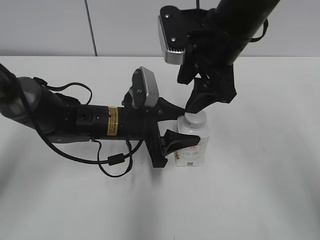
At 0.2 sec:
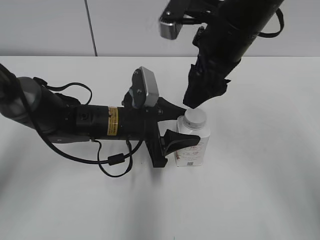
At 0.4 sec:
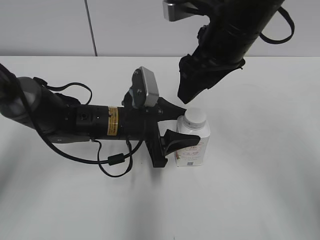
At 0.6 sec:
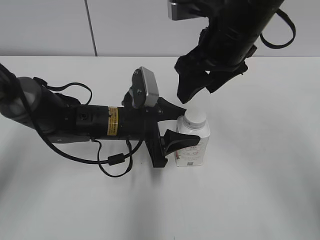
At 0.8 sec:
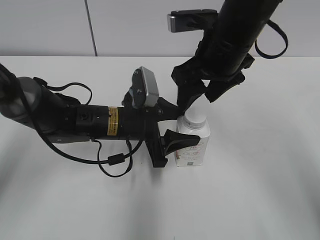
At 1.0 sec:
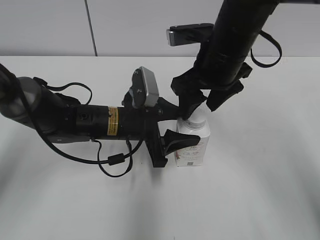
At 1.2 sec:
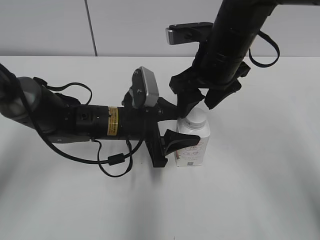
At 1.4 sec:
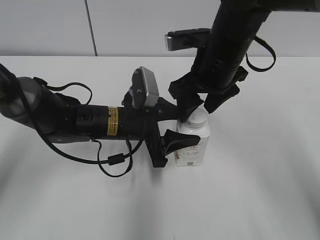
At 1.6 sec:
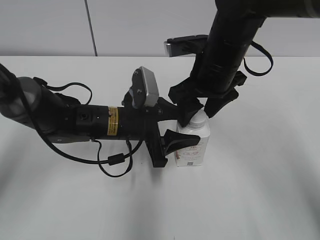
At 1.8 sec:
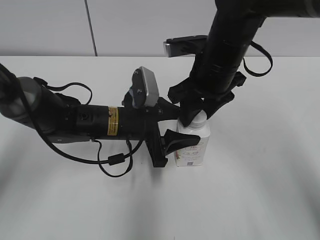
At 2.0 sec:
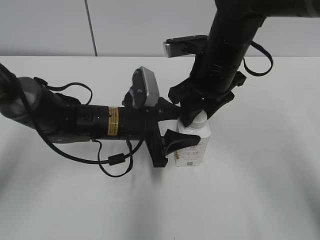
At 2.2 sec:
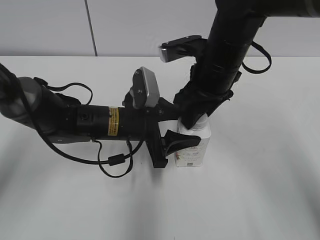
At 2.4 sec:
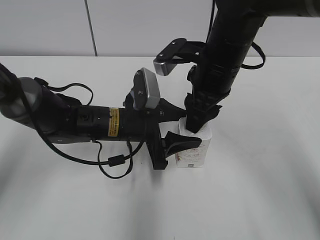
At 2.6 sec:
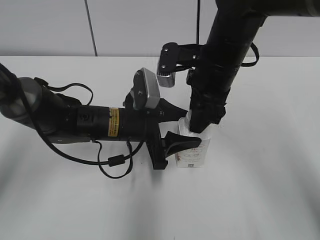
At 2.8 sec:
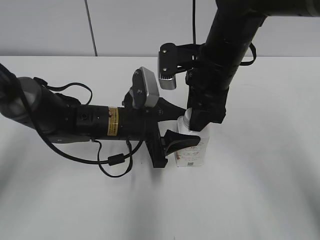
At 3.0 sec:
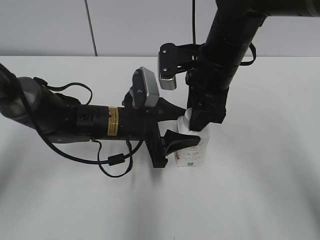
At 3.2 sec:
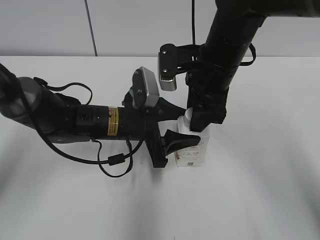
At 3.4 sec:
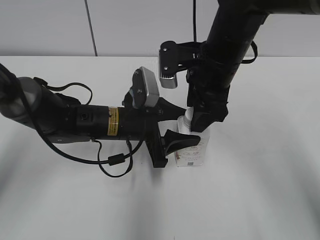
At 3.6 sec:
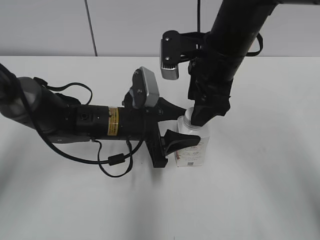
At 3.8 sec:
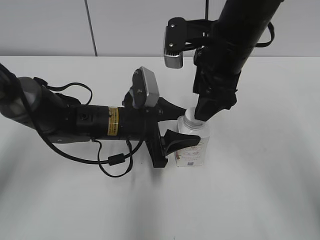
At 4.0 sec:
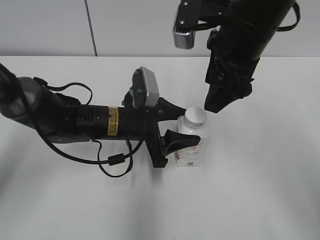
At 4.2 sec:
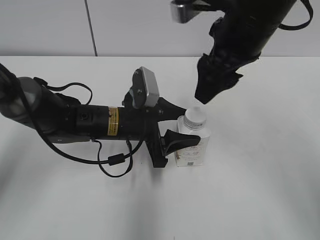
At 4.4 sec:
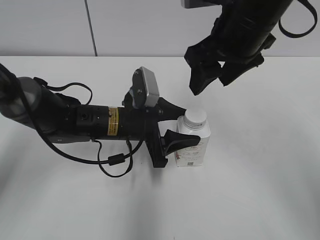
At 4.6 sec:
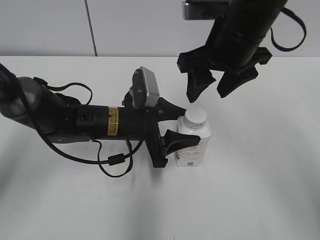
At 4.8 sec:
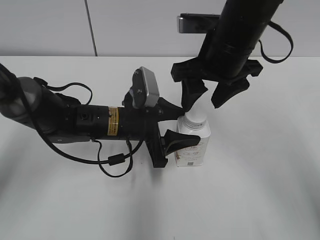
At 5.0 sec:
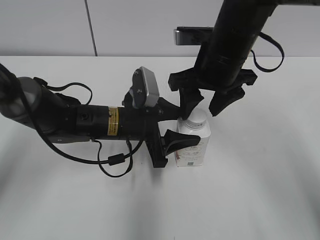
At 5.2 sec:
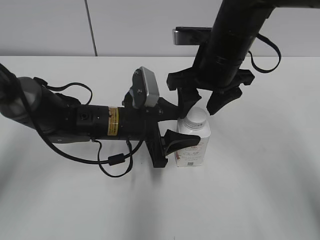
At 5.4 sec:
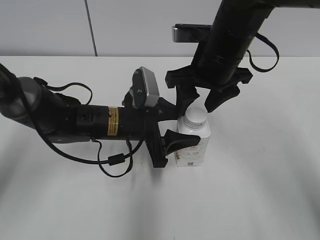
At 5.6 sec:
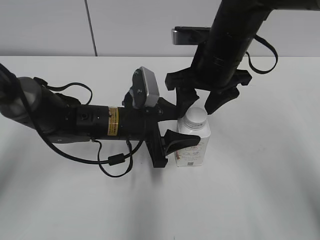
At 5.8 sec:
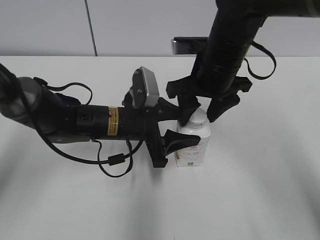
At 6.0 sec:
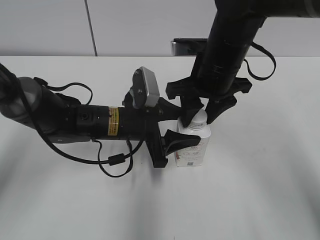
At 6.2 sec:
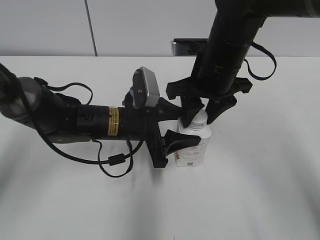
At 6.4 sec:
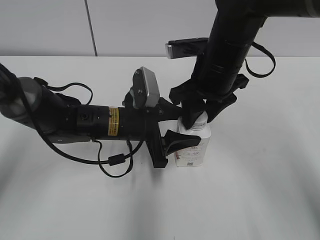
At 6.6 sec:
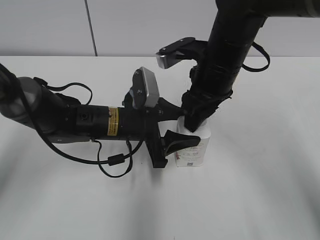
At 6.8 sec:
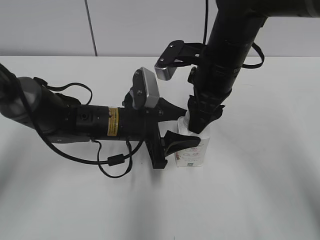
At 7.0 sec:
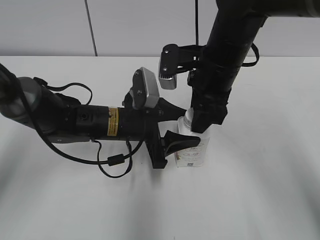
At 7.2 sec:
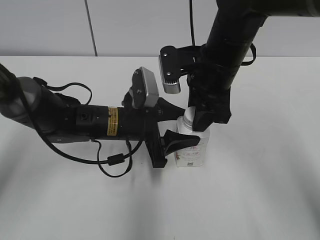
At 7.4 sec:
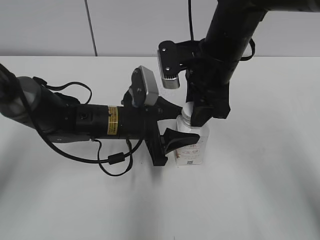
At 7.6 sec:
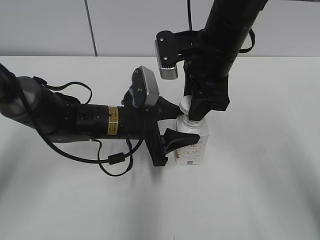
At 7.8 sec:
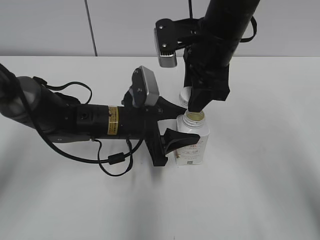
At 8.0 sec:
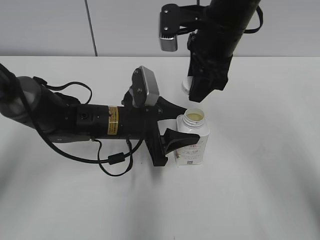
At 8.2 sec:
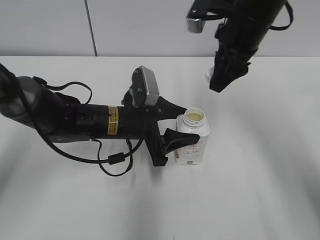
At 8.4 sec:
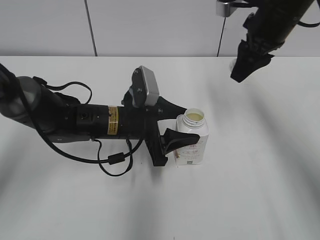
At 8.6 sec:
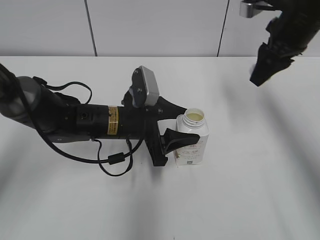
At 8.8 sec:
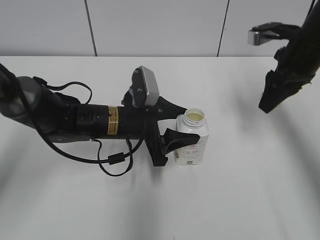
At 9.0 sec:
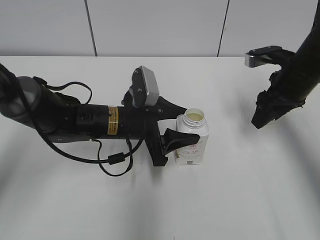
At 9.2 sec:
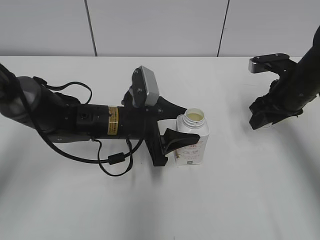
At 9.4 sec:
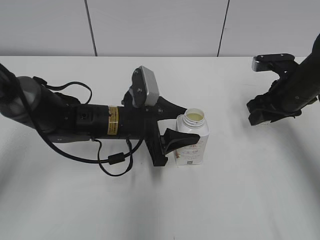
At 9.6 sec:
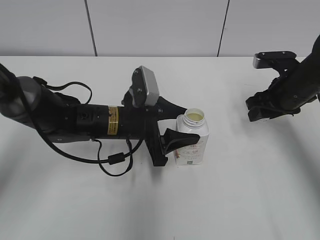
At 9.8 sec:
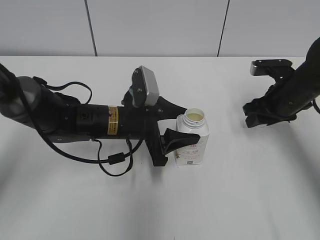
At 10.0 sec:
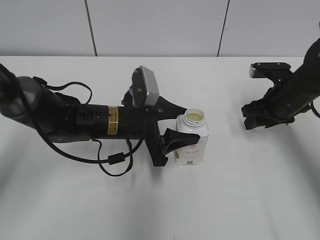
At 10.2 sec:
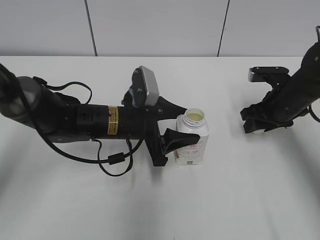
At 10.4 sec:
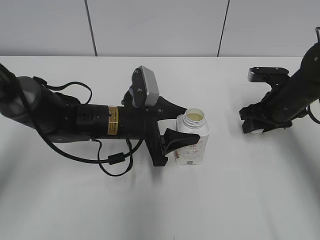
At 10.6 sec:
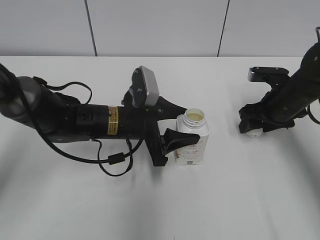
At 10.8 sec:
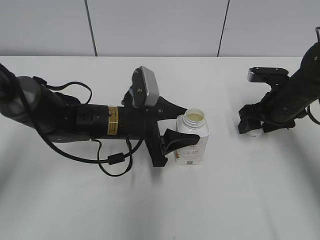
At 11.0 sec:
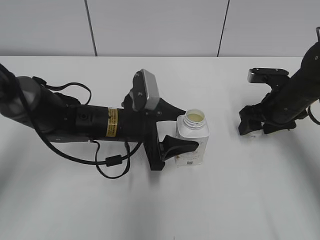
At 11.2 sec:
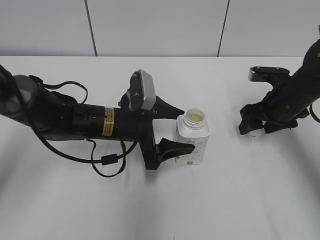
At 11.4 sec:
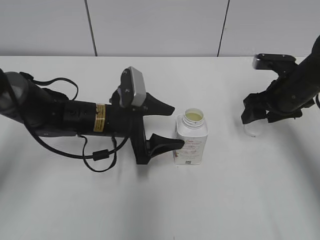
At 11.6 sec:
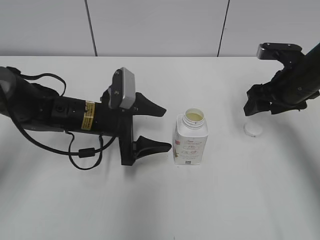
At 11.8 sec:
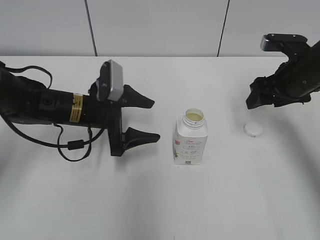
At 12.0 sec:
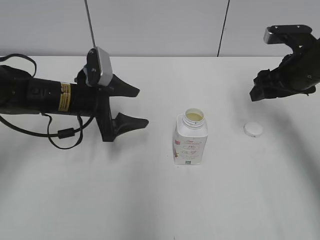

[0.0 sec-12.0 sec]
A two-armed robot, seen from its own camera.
Step, 7.8 sec to 11.0 sec: Place the bottle cap on the right.
Step, 11.2 sec to 11.4 sec: Place the Yili Changqing with the left hand.
0.0 sec to 1.6 sec: The right gripper is displaced downward by some 5 cm.
1.6 sec to 3.0 sec: The right gripper closes up.
3.0 sec to 4.4 sec: The right gripper heads upward, covering approximately 10 cm, and opens.
4.4 sec to 6.0 sec: The right gripper travels downward by approximately 10 cm, and closes up.
7.6 sec to 9.0 sec: The right gripper travels to the right by some 15 cm.
9.0 sec to 10.4 sec: The right gripper travels downward by about 5 cm.
10.4 sec to 12.0 sec: The left gripper moves to the left, roughly 10 cm, and opens. The right gripper is displaced upward by about 10 cm, and opens its fingers.

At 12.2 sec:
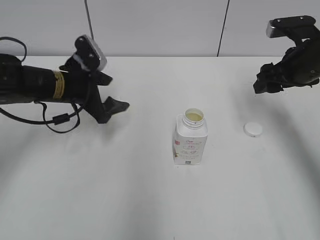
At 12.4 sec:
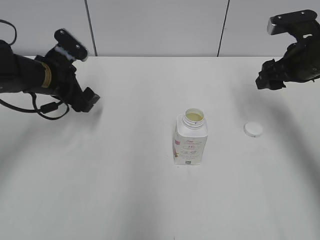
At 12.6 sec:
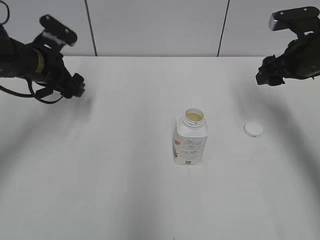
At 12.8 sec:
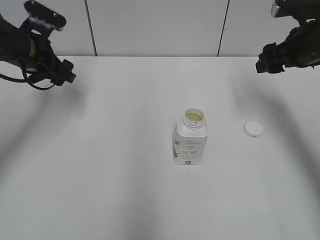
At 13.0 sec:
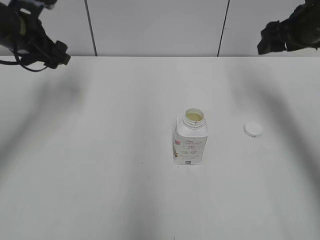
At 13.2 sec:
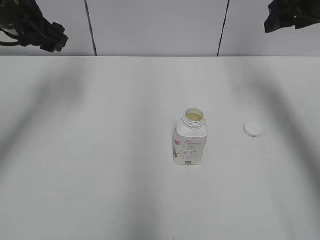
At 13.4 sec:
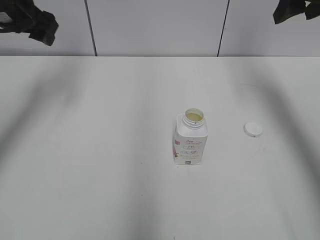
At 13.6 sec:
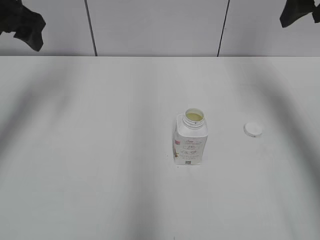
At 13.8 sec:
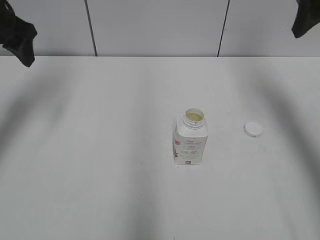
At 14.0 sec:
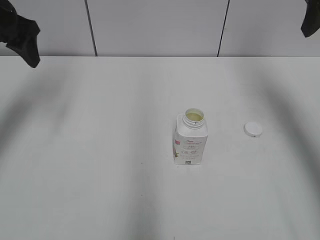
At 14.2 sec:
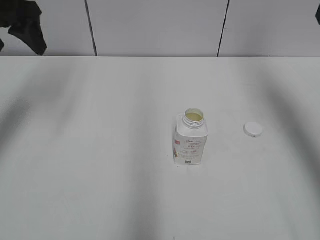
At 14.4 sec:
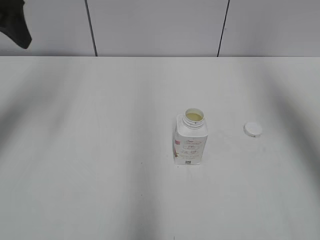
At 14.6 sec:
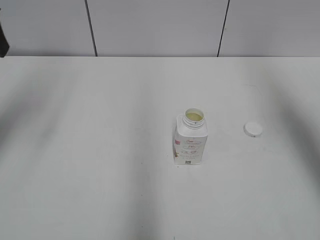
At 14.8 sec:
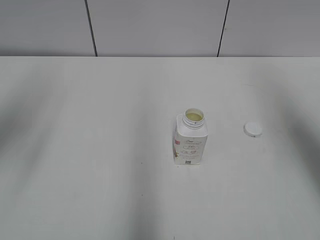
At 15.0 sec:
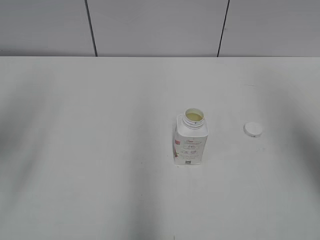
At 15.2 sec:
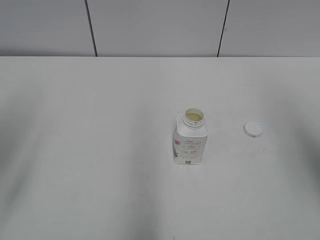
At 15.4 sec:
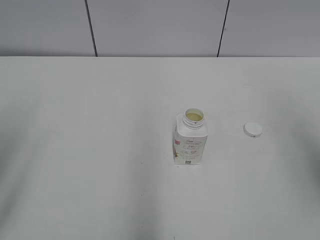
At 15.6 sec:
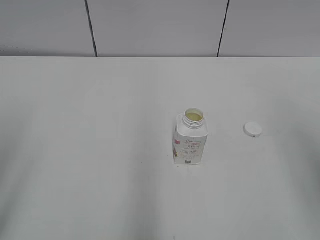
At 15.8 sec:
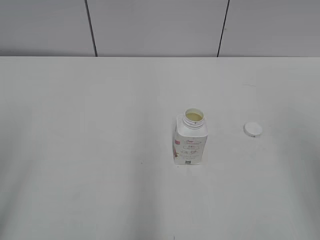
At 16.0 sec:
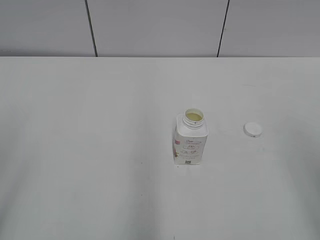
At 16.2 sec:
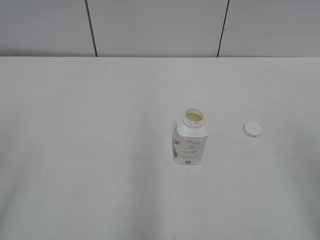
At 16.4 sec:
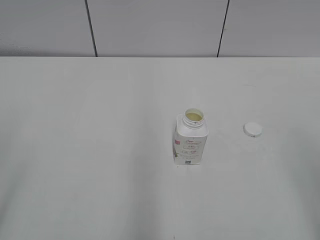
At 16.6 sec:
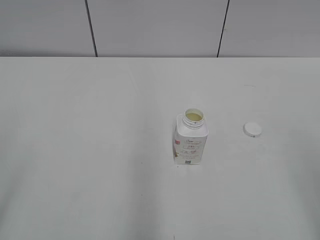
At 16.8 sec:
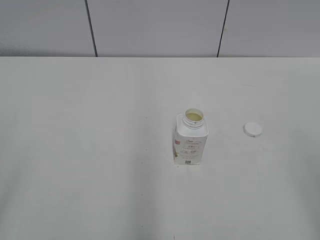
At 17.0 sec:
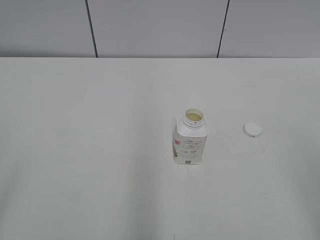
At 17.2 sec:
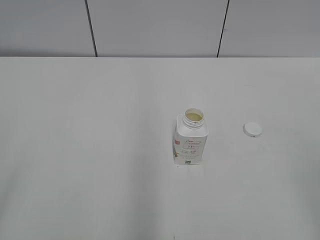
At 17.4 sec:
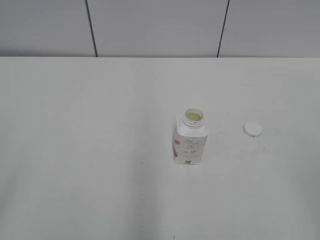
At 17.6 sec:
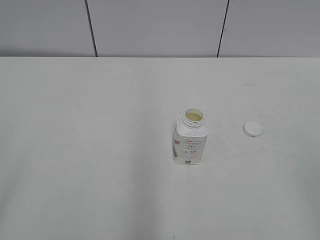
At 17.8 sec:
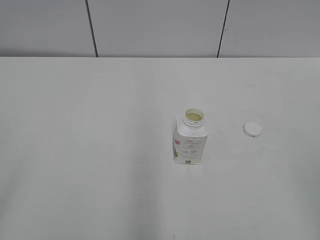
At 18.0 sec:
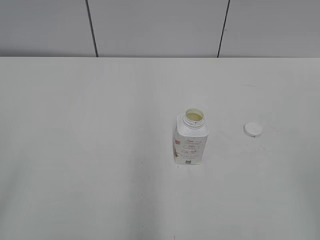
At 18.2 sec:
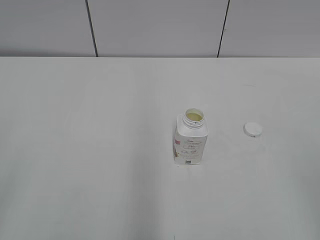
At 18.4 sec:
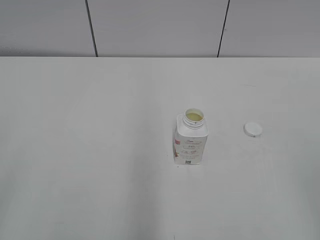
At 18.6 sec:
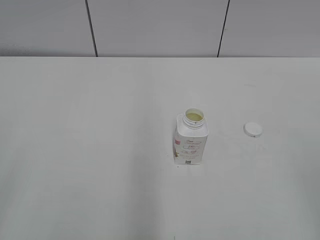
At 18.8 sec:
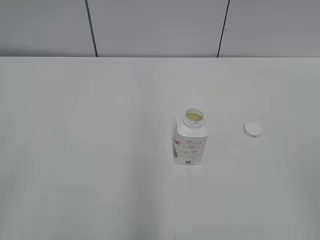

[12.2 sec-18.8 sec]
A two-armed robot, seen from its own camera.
12.2 sec to 13.8 sec: The right gripper goes roughly 15 cm upward. Meanwhile the left gripper is displaced upward and to the left by roughly 20 cm.
13.8 sec to 15.4 sec: The grippers both shift backward by some 25 cm.
15.4 sec to 17.2 sec: The left gripper is displaced backward by about 15 cm. The right gripper heads backward and downward, covering some 15 cm.
